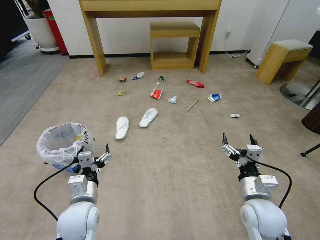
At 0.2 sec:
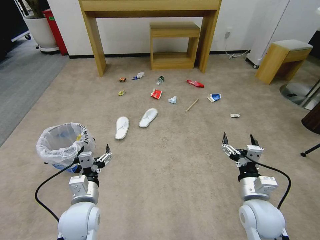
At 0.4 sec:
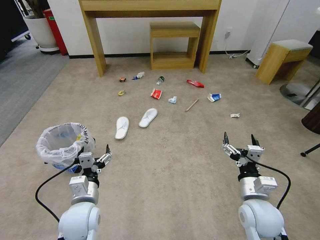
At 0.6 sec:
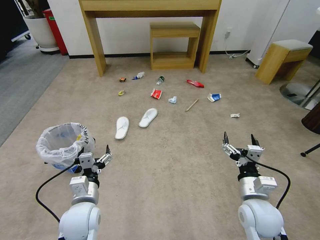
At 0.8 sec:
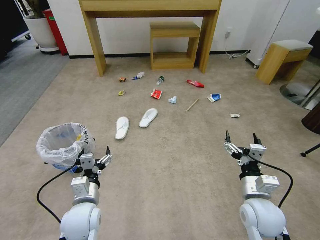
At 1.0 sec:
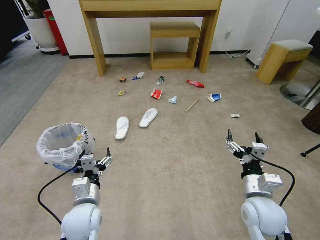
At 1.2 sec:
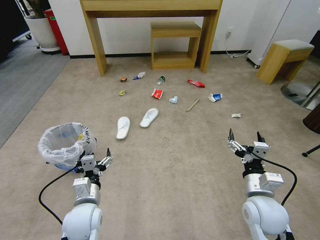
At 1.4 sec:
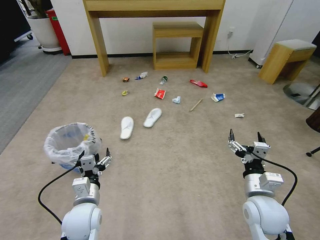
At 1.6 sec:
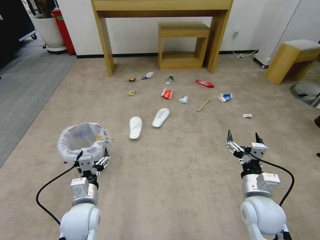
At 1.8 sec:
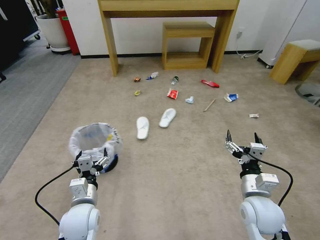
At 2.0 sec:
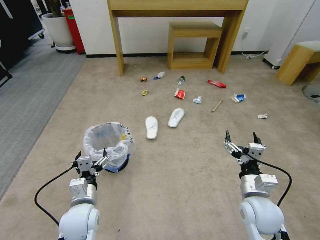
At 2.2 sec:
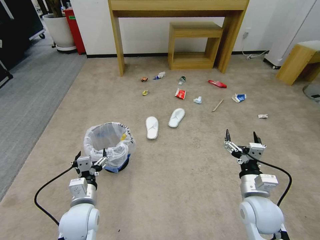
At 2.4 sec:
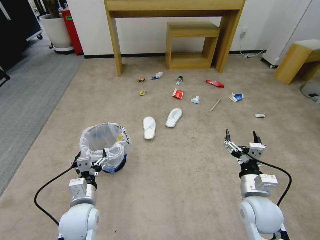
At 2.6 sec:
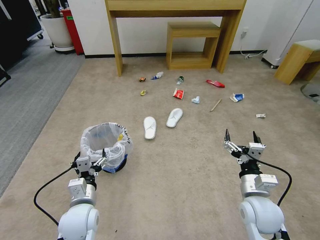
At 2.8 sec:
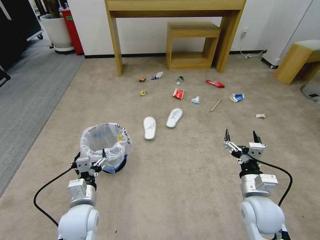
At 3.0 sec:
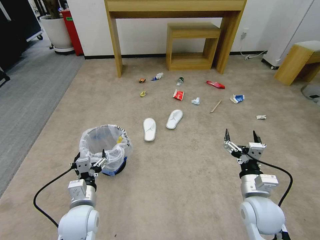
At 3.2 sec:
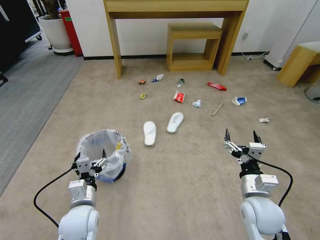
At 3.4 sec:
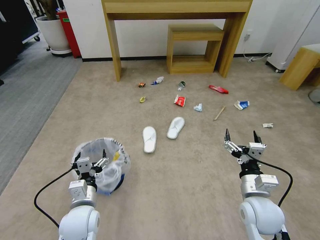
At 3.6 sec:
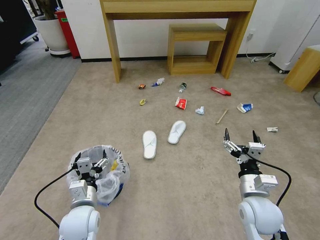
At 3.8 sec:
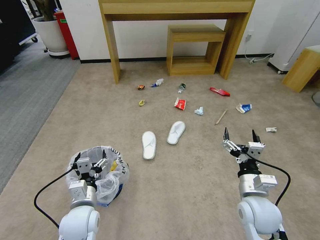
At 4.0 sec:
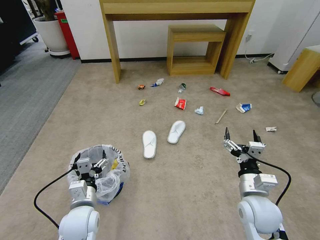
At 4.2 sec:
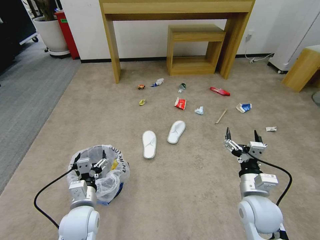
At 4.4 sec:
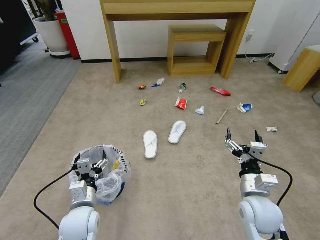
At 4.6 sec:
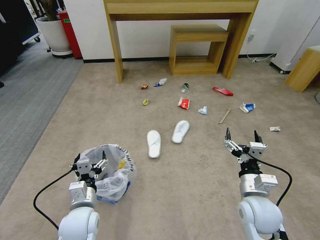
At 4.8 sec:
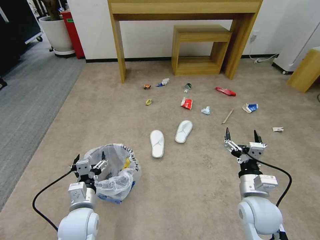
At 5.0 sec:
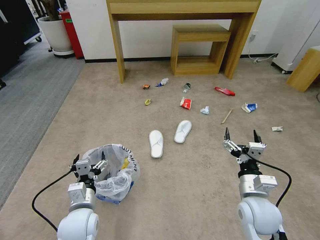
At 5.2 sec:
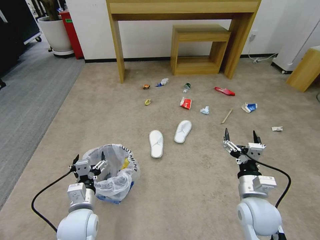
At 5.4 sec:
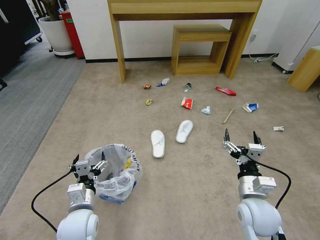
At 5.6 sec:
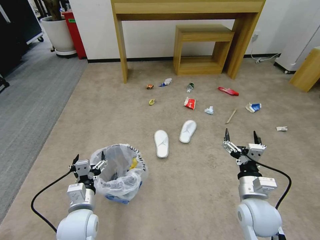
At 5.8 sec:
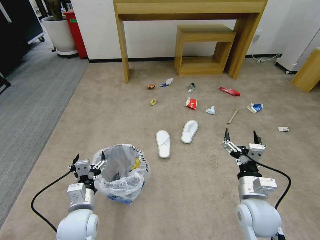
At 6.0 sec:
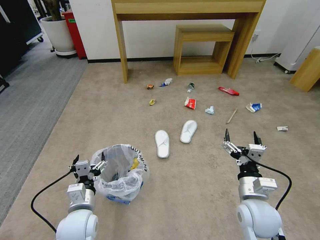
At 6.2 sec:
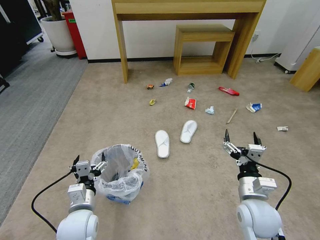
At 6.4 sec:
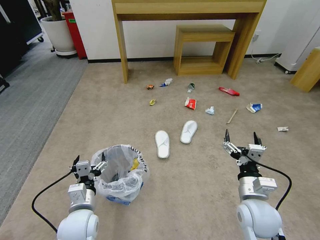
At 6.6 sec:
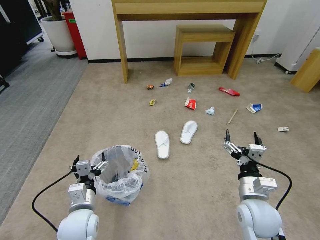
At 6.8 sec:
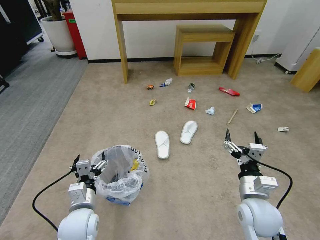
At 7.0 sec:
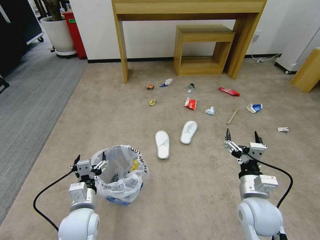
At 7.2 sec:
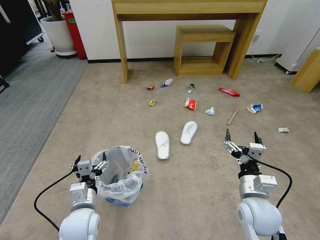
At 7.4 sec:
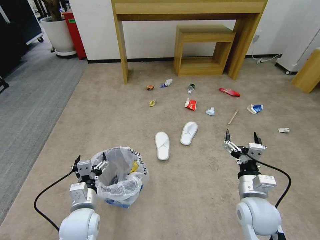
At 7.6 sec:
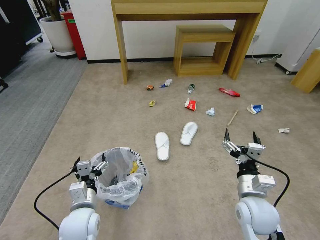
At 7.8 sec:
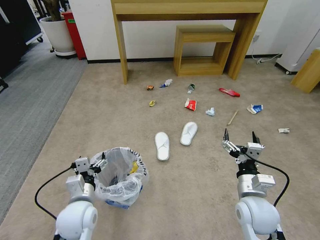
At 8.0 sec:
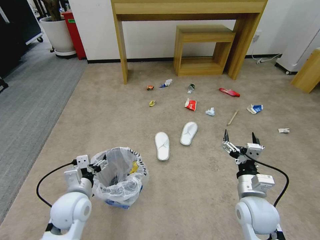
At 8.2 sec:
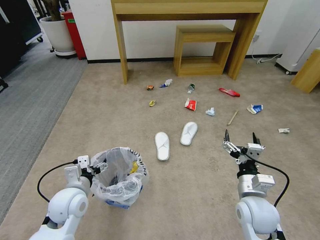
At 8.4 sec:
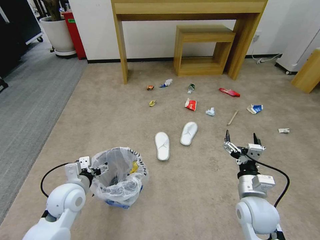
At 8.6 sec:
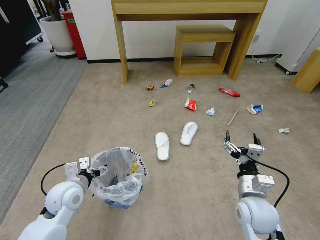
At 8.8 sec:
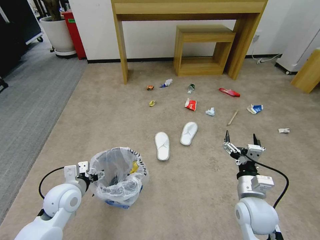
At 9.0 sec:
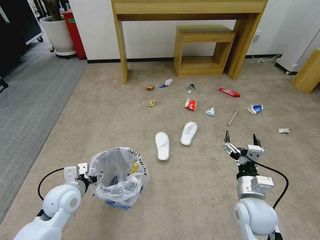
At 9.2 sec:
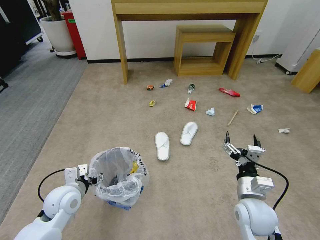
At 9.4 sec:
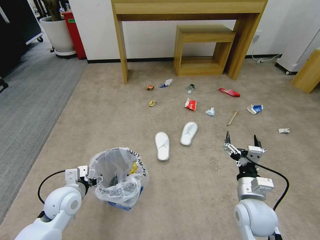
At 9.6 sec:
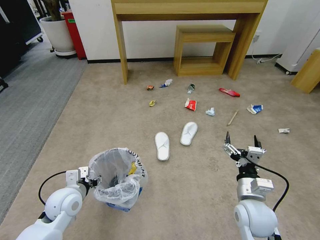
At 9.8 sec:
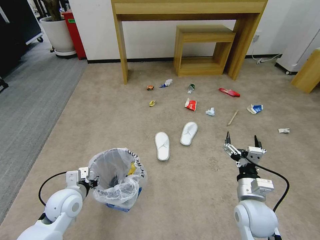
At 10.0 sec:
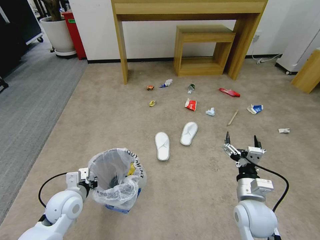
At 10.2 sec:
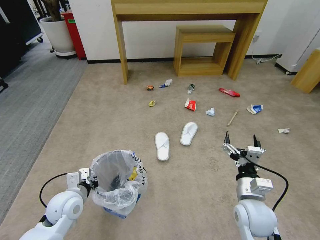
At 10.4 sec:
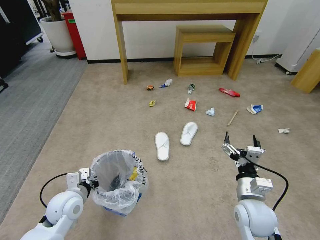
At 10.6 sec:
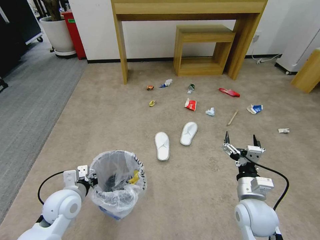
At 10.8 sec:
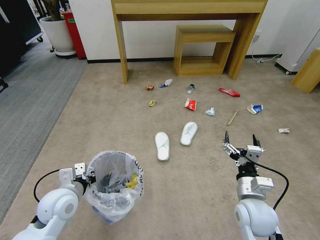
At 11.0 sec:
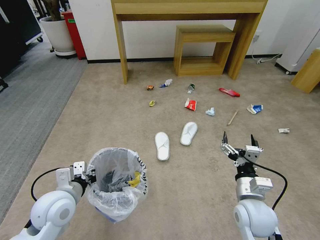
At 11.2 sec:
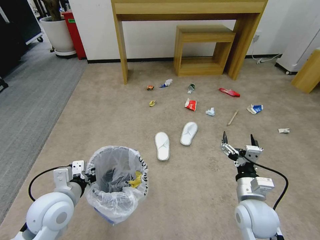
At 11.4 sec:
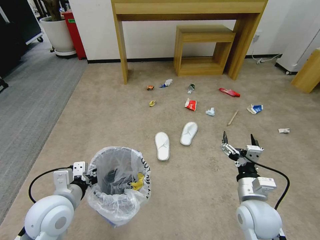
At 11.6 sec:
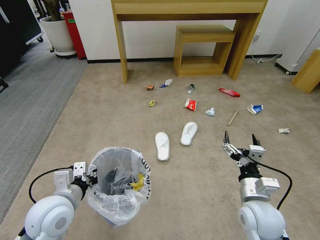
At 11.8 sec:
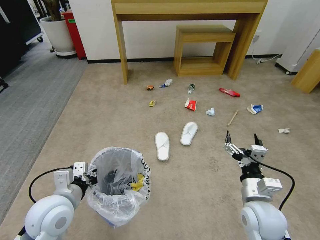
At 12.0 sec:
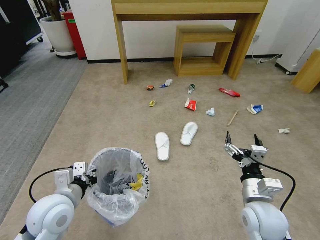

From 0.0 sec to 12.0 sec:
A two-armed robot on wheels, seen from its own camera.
Task of the whole recording: Pick up the trash bin and place the garbage on the floor into it.
From 3.0 sec to 6.0 sec: Both grippers stay put.
From 6.0 sec to 7.6 sec: The two grippers keep their place.
From 7.6 sec to 9.0 sec: The left gripper goes approximately 10 cm to the left and forward.
From 9.0 sec to 10.4 sec: The left gripper closes its fingers.
From 10.4 sec to 12.0 sec: The left gripper heads upward, covering roughly 10 cm.

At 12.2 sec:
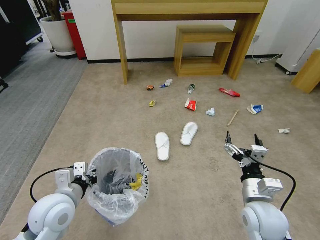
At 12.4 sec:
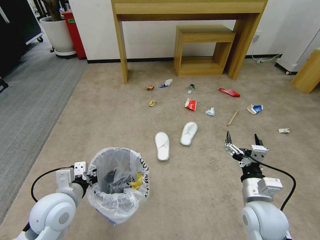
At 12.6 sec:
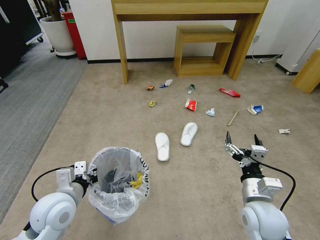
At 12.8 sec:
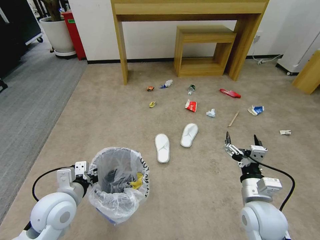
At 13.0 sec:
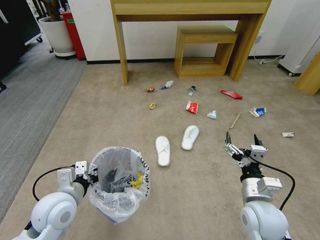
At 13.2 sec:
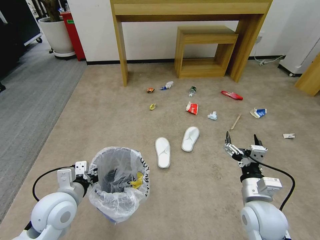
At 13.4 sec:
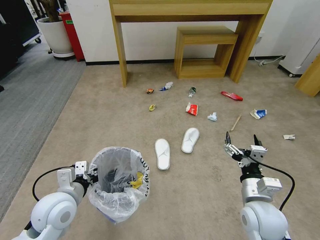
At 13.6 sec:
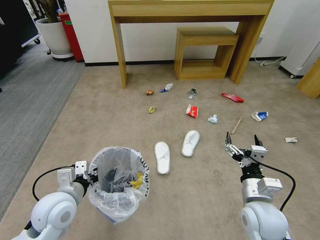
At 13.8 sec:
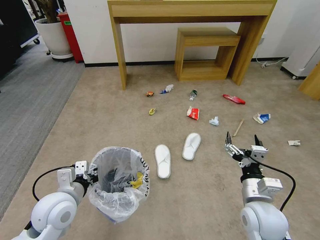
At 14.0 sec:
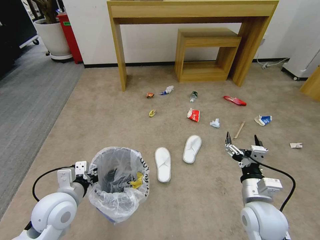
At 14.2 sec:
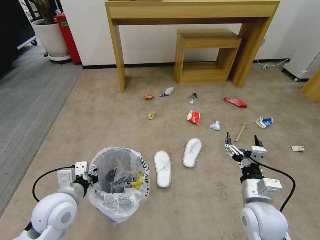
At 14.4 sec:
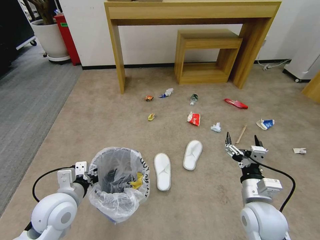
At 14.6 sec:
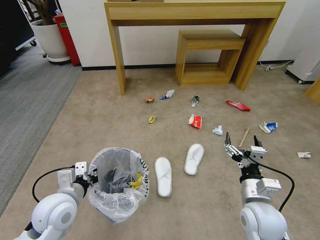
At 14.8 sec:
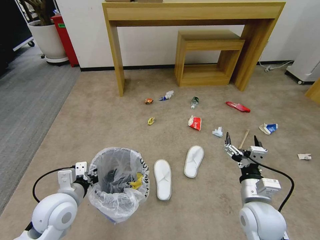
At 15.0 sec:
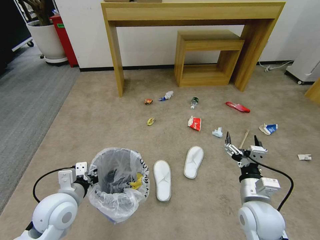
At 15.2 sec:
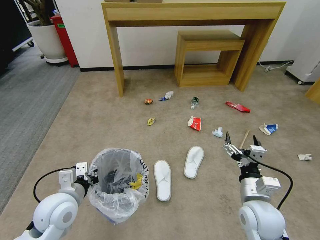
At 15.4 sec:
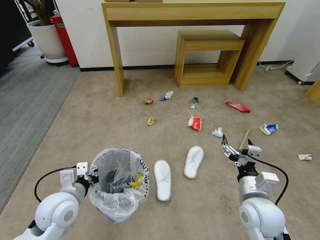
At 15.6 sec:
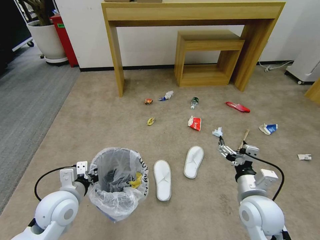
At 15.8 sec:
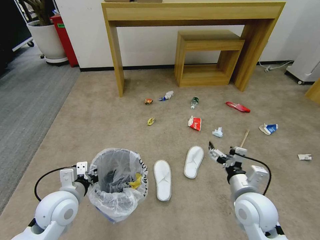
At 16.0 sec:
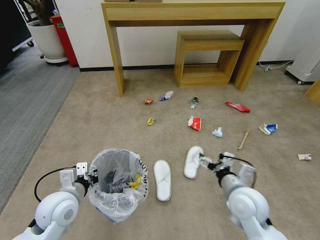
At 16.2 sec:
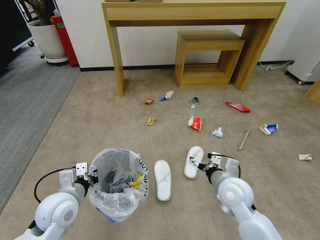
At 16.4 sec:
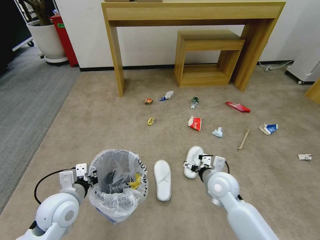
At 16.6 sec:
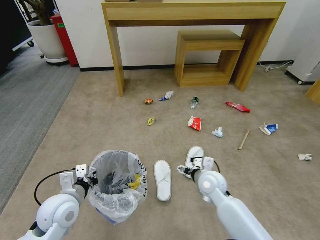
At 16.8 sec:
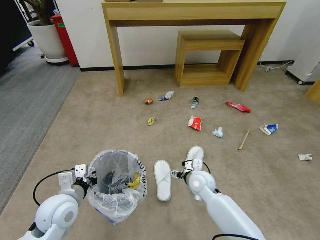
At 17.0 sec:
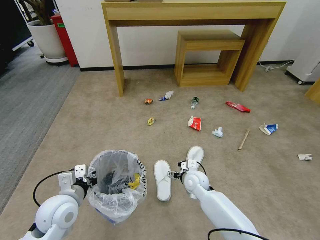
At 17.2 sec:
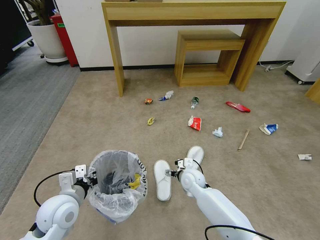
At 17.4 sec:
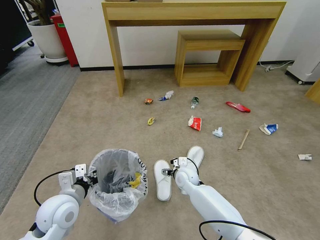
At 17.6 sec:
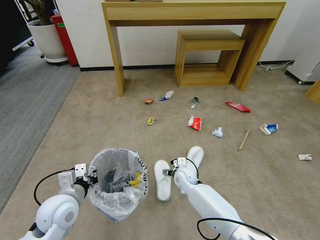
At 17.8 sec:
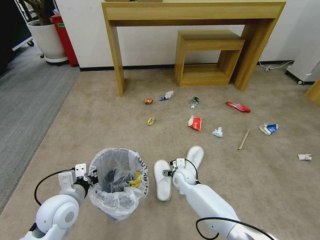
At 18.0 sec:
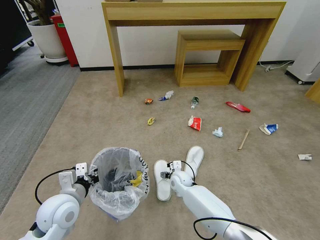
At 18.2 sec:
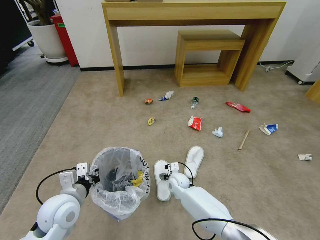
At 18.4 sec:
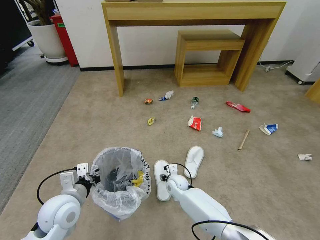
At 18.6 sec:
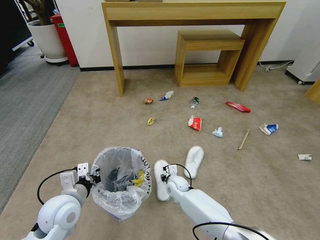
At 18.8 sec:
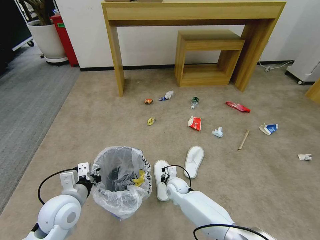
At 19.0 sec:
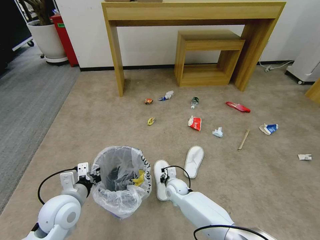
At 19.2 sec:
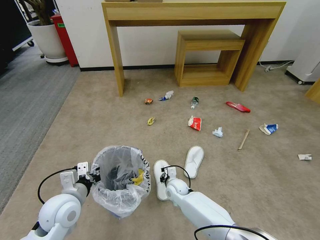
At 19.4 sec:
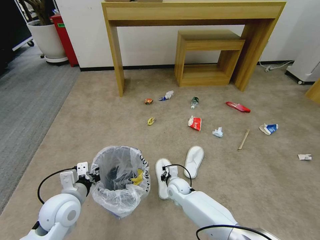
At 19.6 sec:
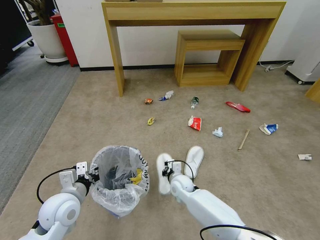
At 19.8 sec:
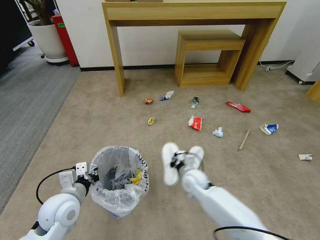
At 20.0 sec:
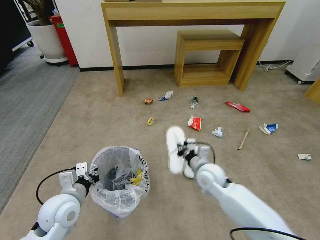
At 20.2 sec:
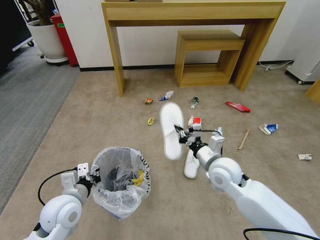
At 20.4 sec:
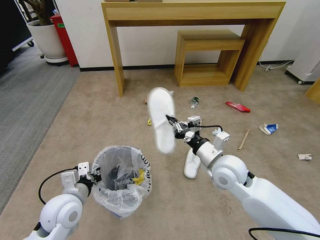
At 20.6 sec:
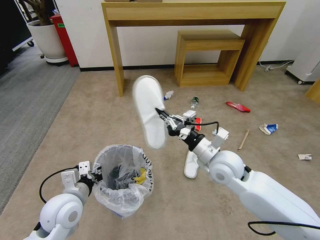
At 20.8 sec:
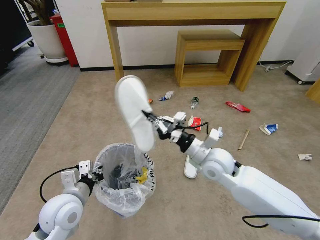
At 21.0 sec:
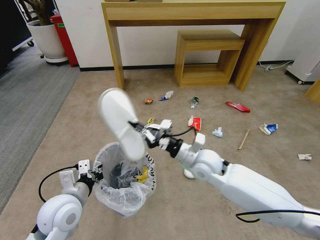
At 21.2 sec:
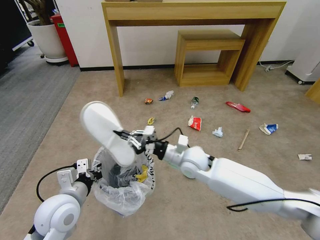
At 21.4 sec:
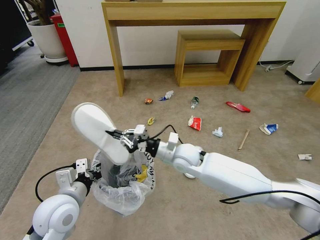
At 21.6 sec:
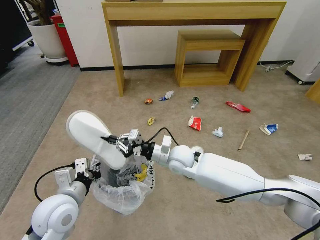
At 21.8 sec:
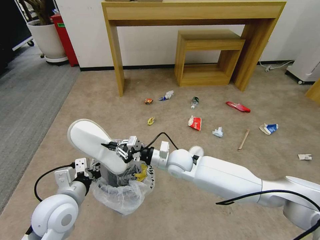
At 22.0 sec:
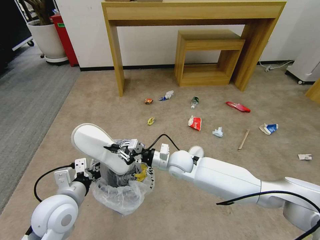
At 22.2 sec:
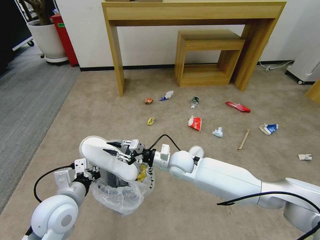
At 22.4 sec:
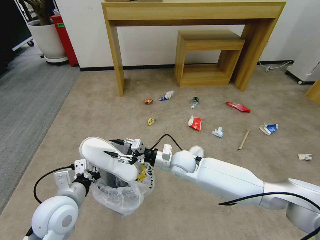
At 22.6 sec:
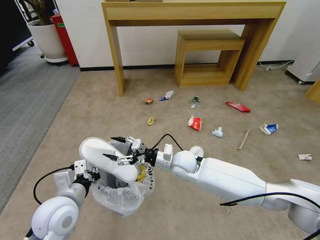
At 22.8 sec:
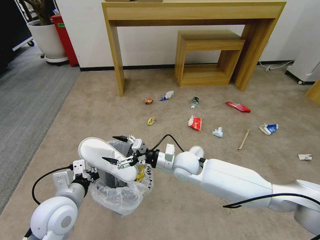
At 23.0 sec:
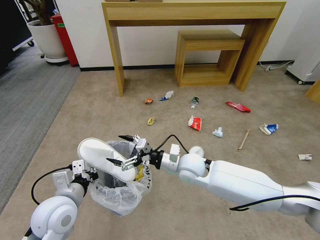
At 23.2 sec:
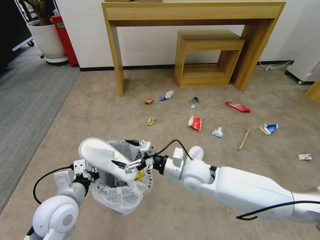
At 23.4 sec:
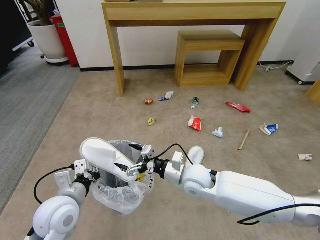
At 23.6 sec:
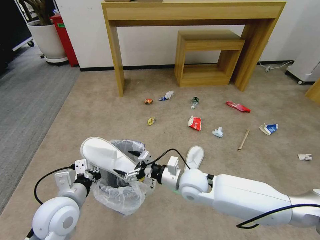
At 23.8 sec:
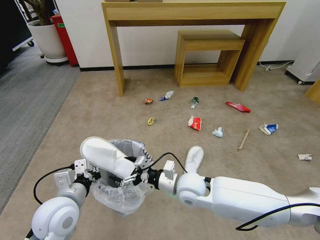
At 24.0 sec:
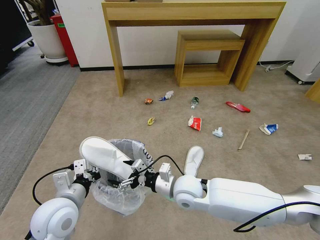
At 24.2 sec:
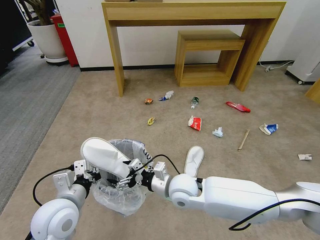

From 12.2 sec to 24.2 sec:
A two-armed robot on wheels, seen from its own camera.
Task of the whole recording: Pick up the trash bin and place the garbage on the floor into it.
From 12.2 sec to 13.8 sec: Neither gripper changes place.
From 15.2 sec to 16.6 sec: The right gripper travels forward, to the left and downward by roughly 15 cm.
From 16.6 sec to 18.2 sec: The right gripper heads downward, to the left and forward, covering roughly 20 cm.
From 18.2 sec to 19.8 sec: The right gripper is displaced upward and to the right by some 10 cm, and closes its fingers.
From 19.8 sec to 21.2 sec: The right gripper travels upward by about 10 cm.
From 21.2 sec to 22.6 sec: The right gripper moves approximately 5 cm, and opens up.
From 22.6 sec to 24.2 sec: The right gripper is displaced backward by some 10 cm.
